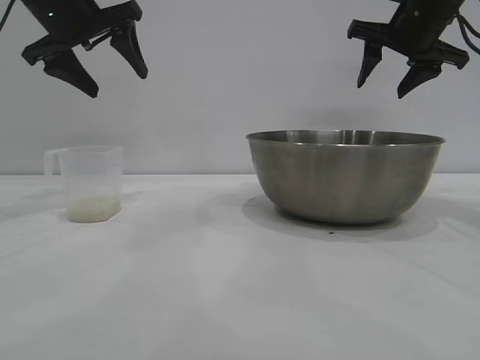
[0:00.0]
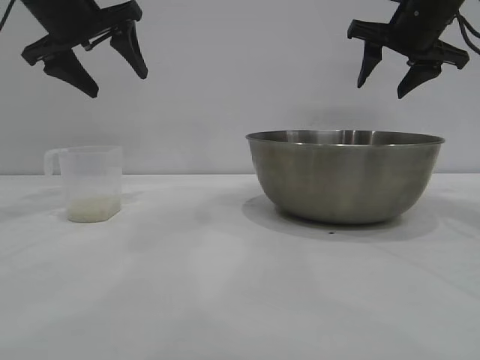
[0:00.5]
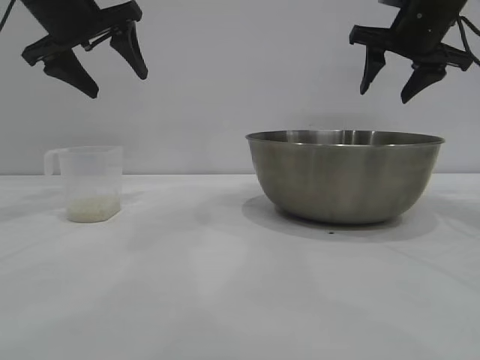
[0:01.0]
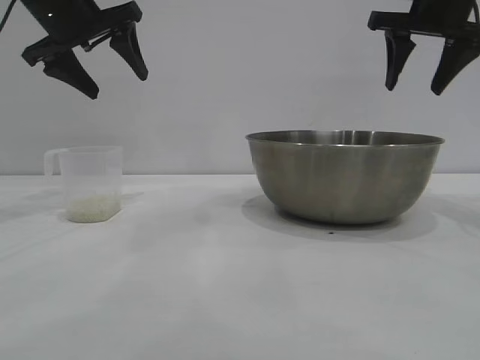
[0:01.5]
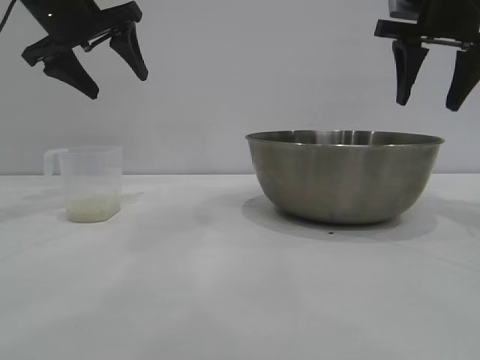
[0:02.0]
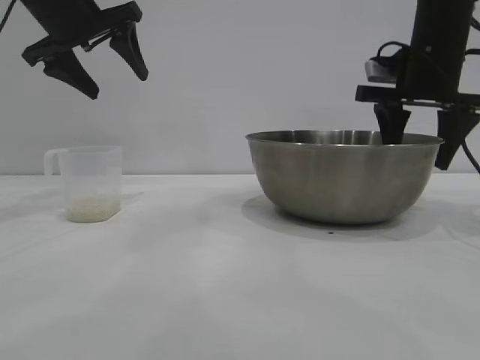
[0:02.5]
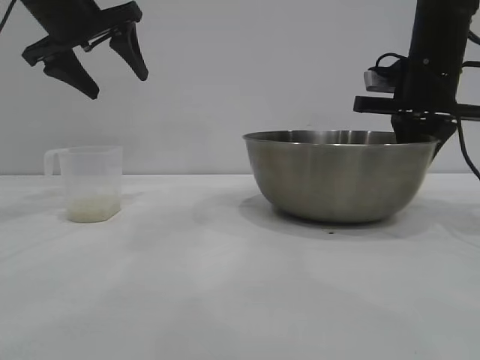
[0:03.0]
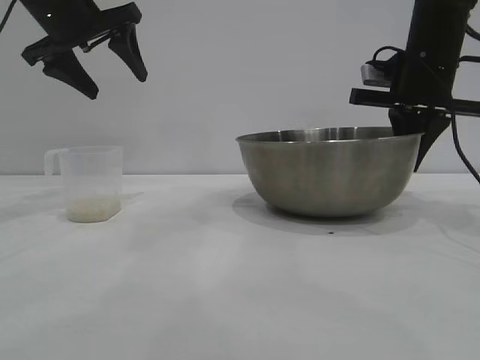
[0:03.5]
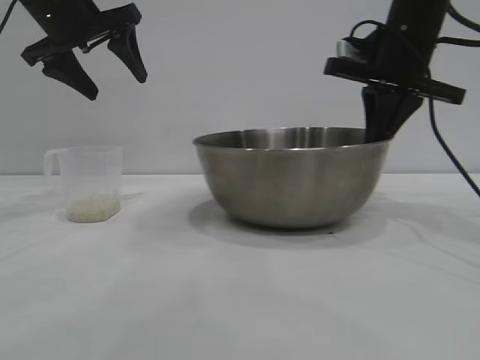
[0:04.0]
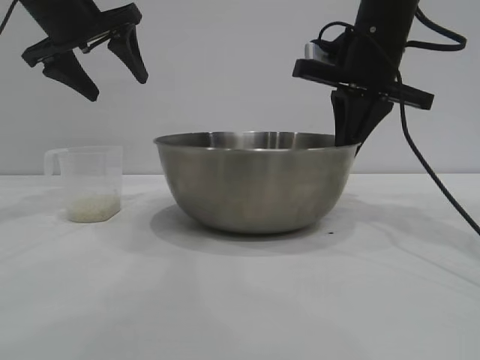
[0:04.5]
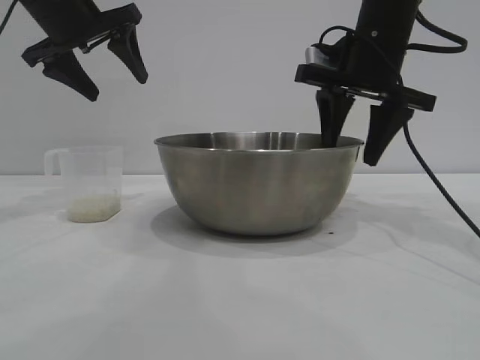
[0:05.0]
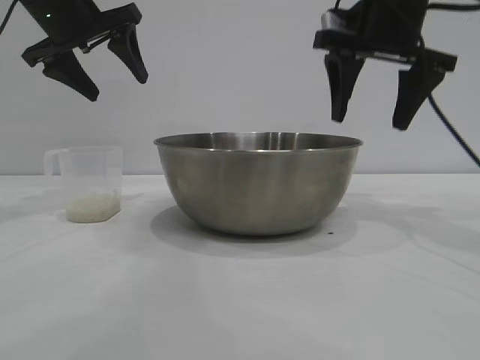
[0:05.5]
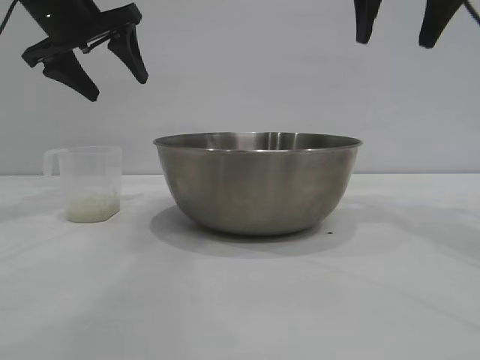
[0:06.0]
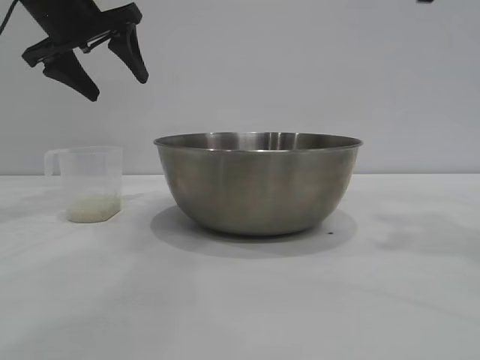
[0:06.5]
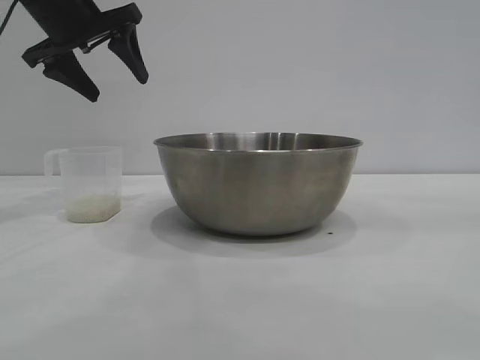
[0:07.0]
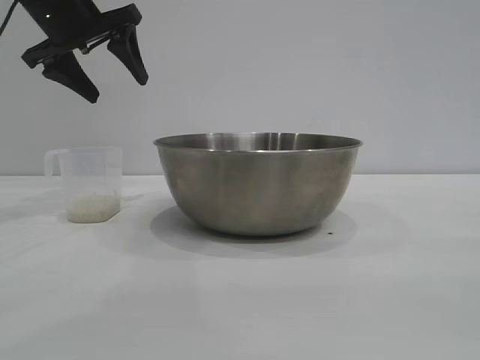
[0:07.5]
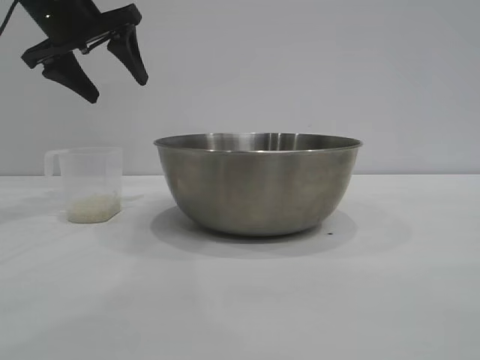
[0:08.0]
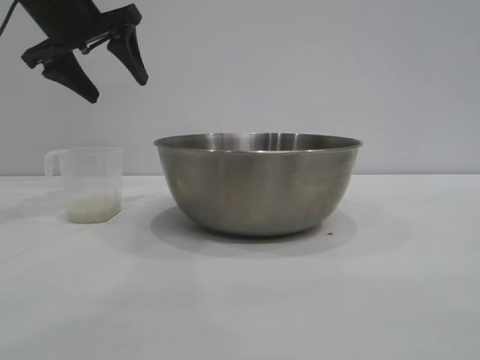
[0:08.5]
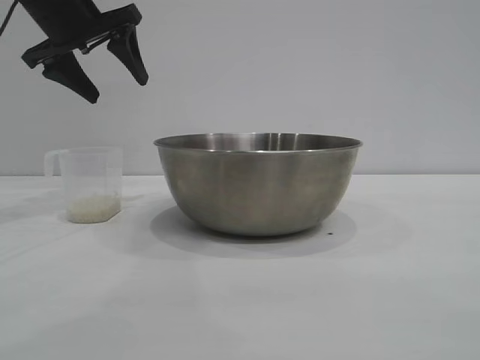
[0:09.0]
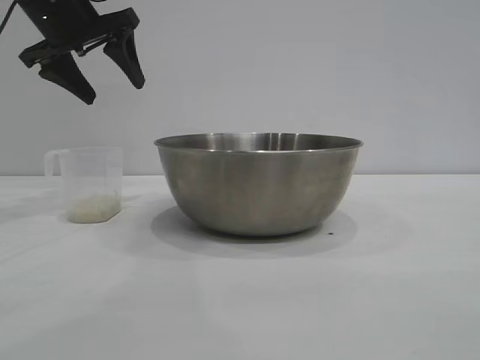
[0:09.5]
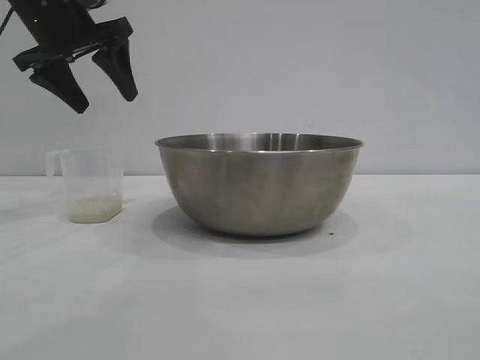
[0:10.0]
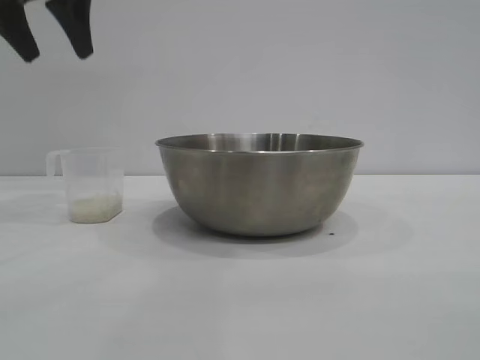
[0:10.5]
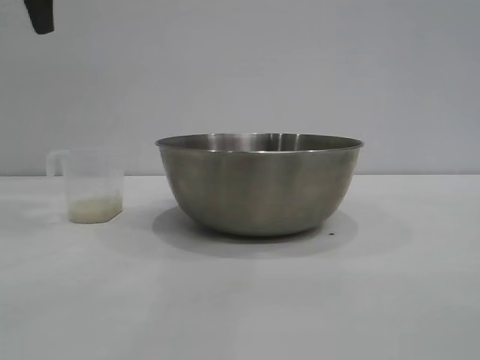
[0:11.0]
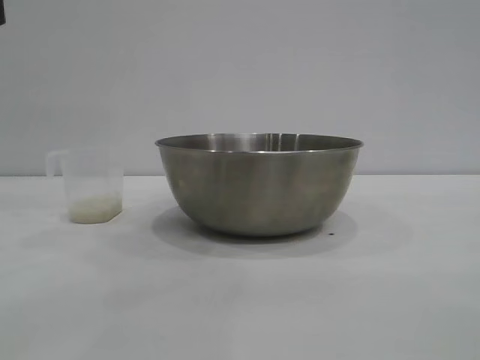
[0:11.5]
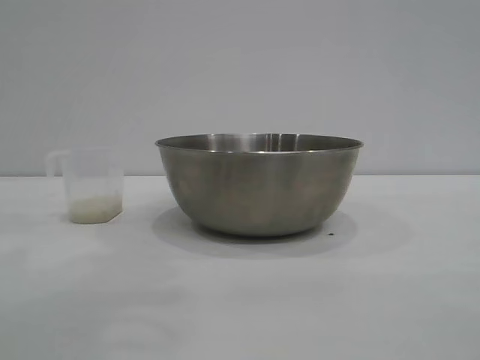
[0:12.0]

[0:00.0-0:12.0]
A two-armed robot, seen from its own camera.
Task of the whole recording: the right gripper grasp the rice container and place it in the center of the table, the left gripper grasp the rice scoop and pour the rice into the rice container.
Step, 0:00.0 to 0:05.5: Move the bowl to the center of view with the right gripper.

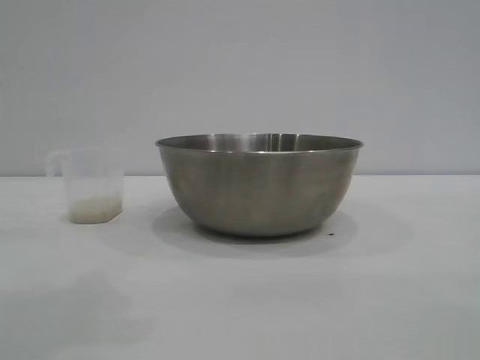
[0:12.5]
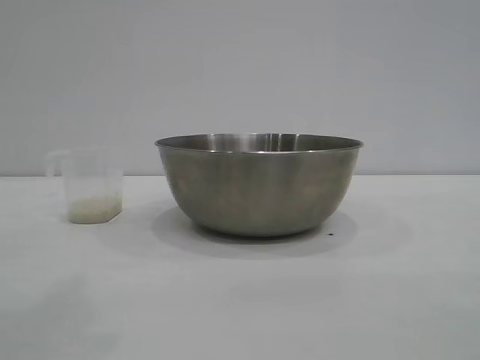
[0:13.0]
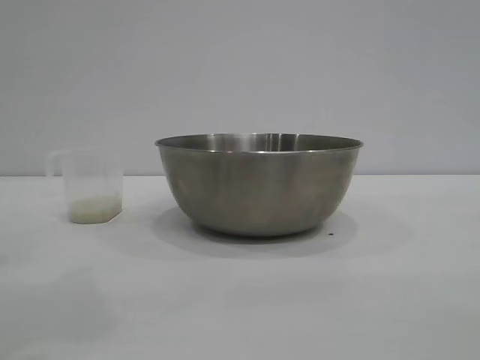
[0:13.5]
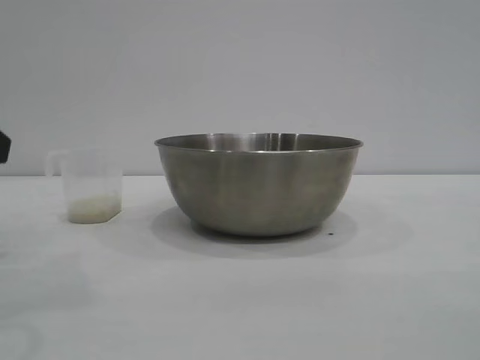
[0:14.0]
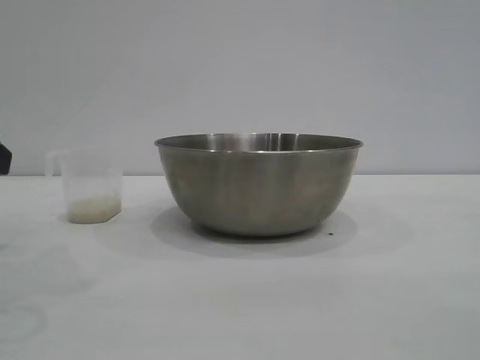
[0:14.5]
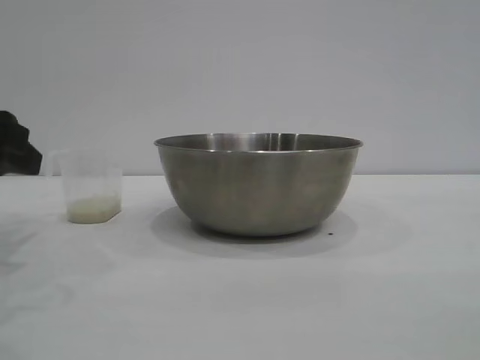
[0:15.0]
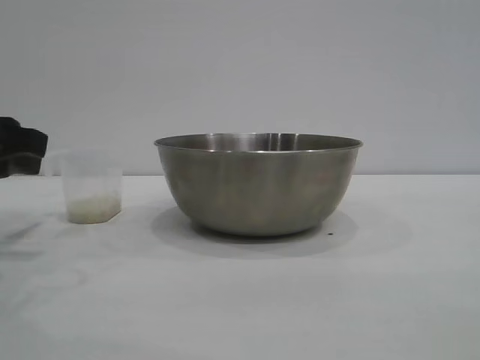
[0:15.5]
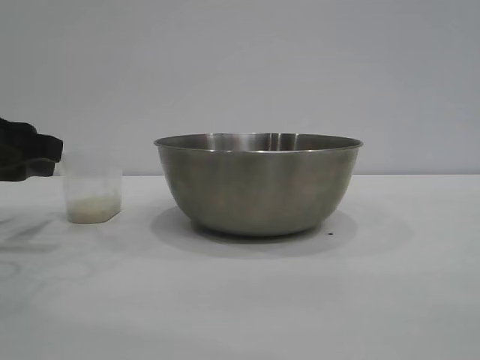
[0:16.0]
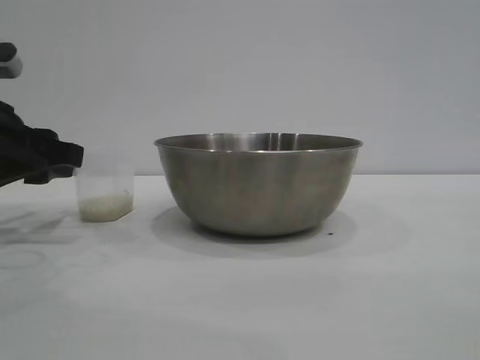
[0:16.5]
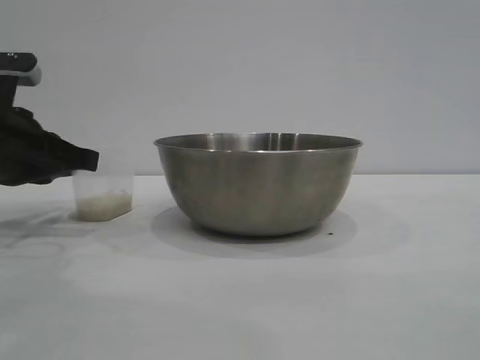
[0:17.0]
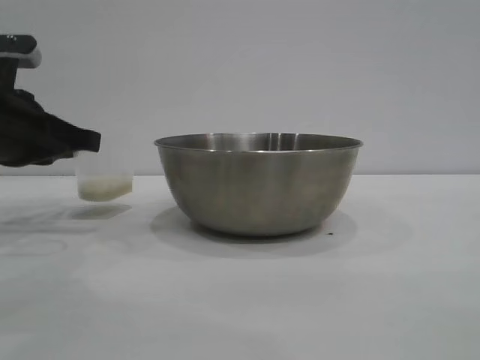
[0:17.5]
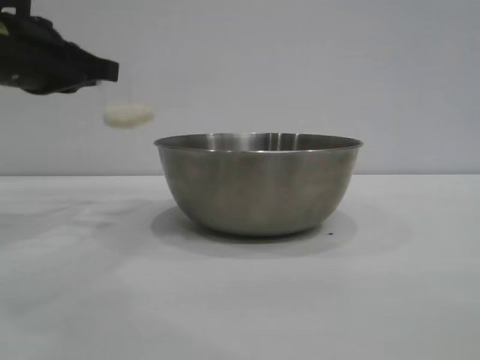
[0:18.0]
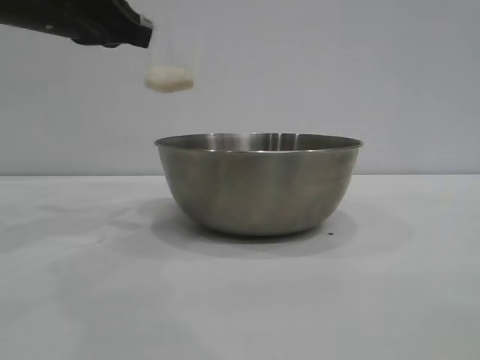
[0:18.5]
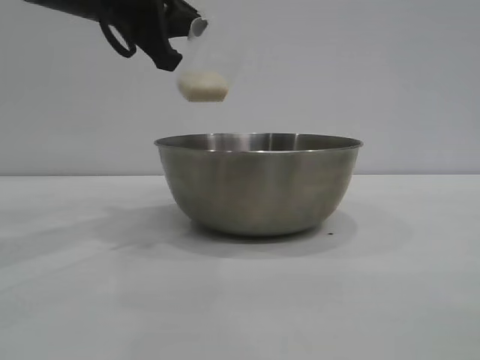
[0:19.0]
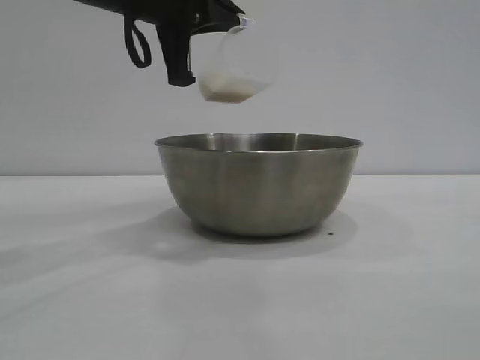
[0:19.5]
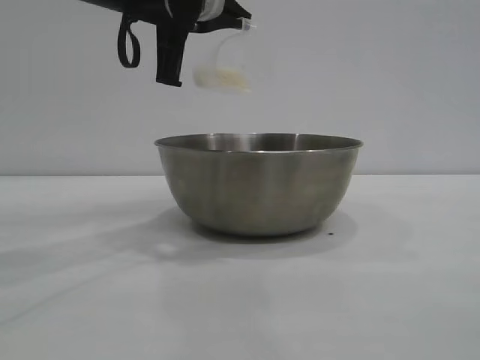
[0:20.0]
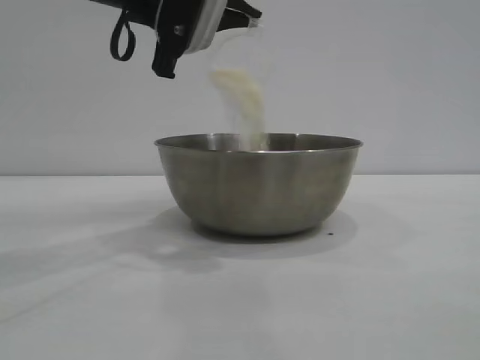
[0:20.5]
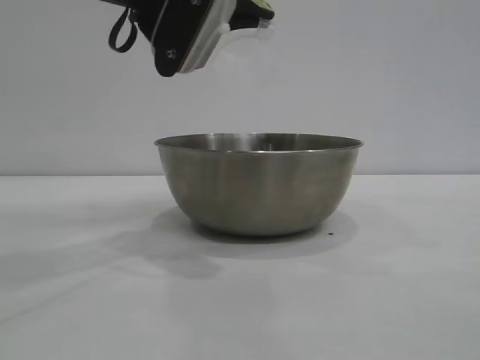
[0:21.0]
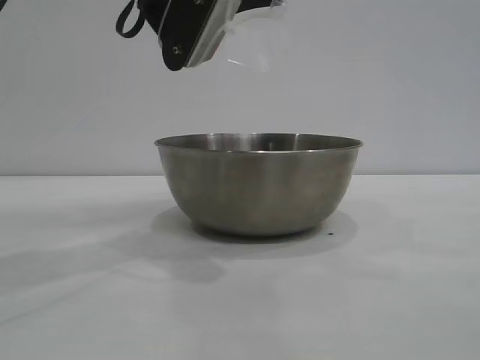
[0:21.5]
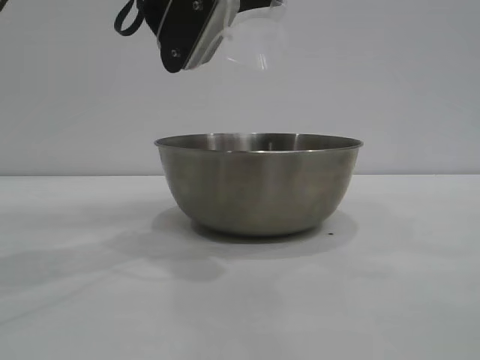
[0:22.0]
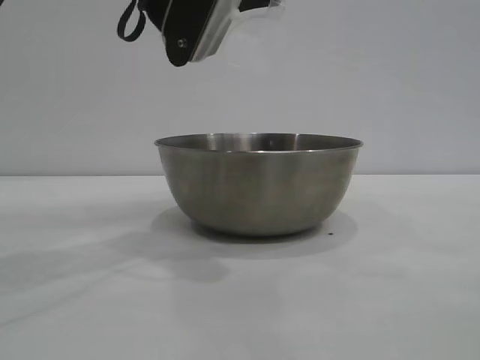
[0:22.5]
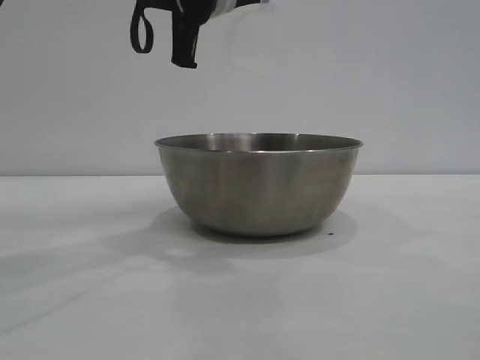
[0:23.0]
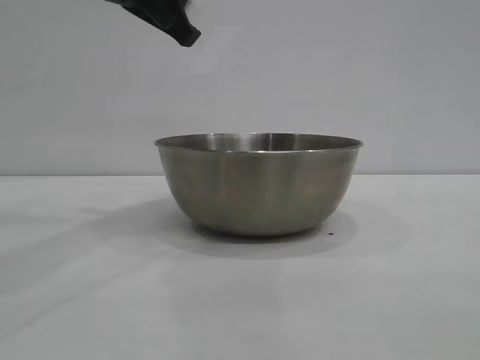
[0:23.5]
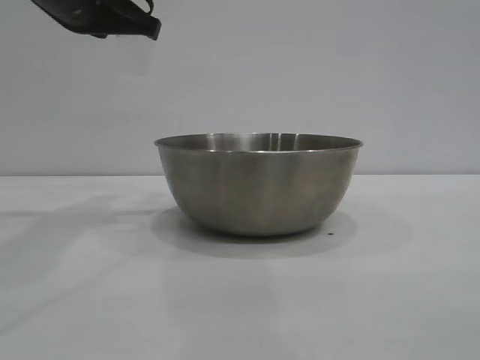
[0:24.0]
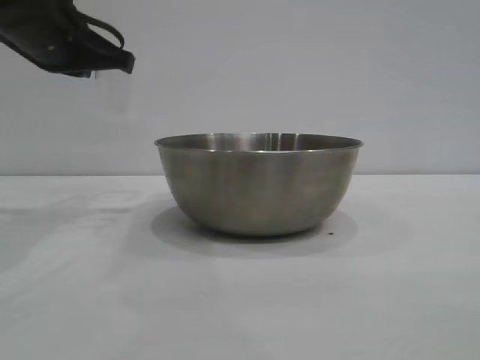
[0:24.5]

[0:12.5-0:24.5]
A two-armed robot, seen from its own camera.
Task of the whole recording: the right gripper grasp the rice container and place it in the center of the table, the left gripper grasp the rice scoop and pour the rice into the rice container.
Step, 0:12.5 to 0:17.5: Pick up the cup with rice in it with the left gripper.
Step, 0:18.5 to 0:23.0: Pour the rice from the cup into the bowl with the left gripper.
